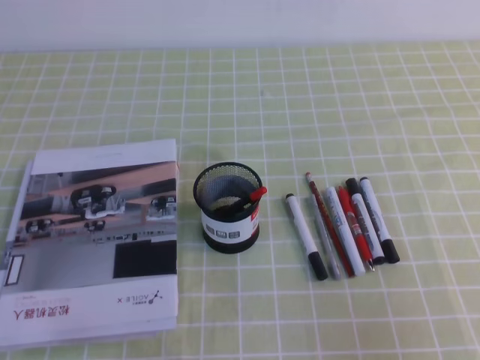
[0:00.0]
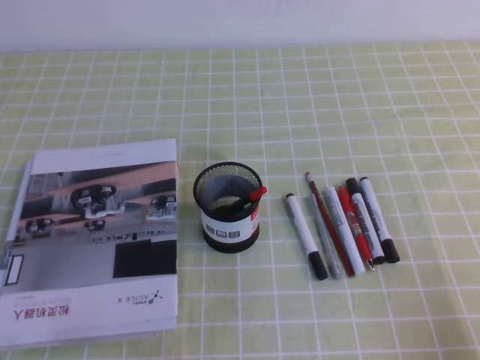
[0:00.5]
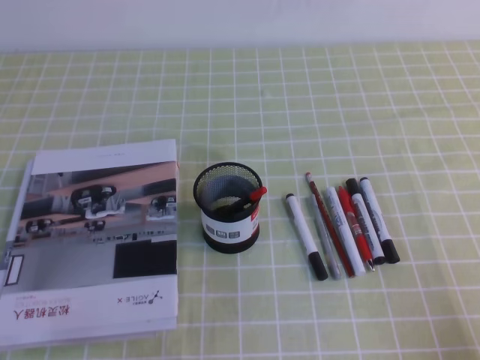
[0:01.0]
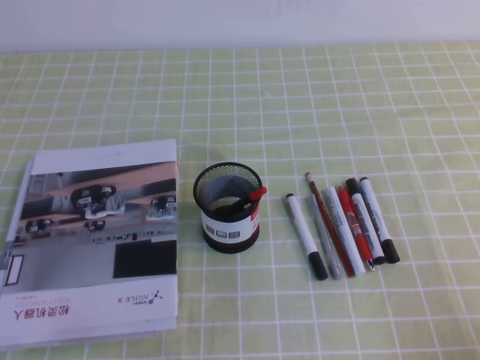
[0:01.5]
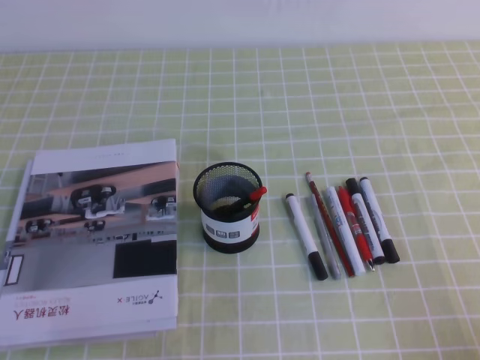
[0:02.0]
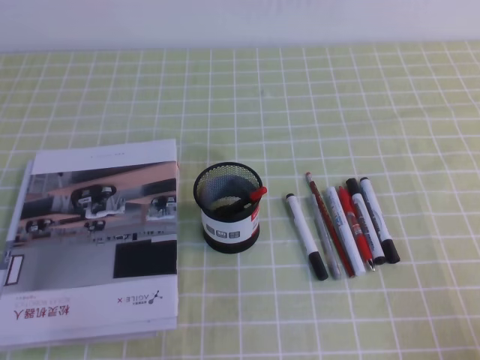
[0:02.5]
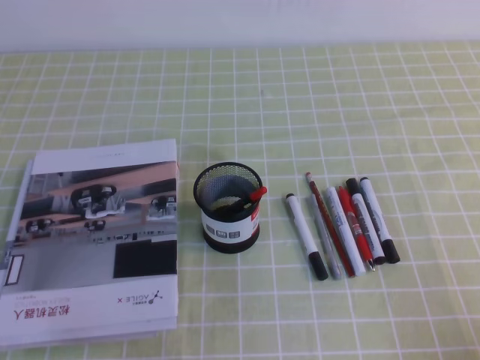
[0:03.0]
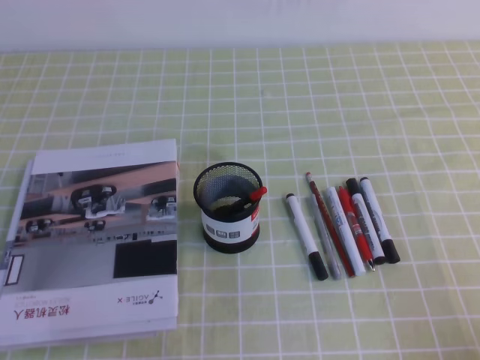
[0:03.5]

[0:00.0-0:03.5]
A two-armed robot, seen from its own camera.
Step, 0:00.0 to 0:03.5: Pick up the pen from the pen holder.
0:00.0 to 0:02.0: The right gripper heads downward, covering some 15 cm.
0:02.0 to 0:03.5: Neither gripper changes place.

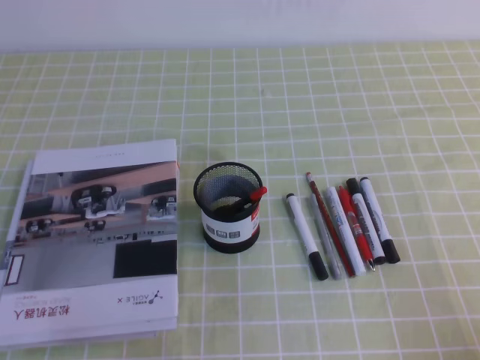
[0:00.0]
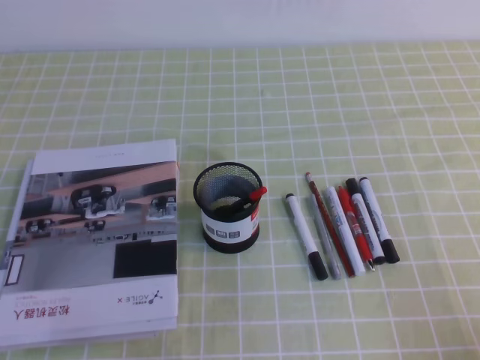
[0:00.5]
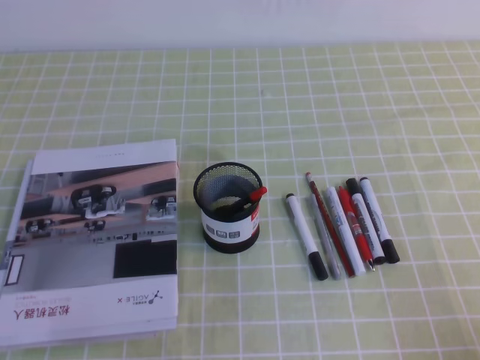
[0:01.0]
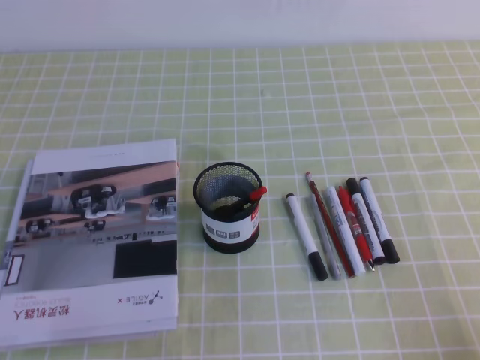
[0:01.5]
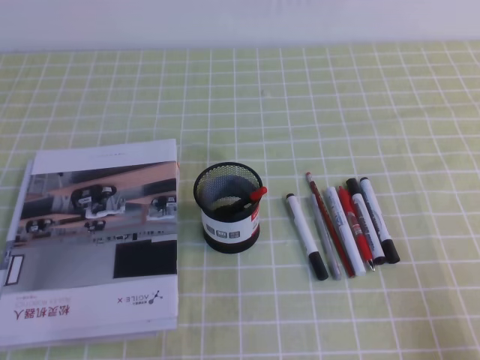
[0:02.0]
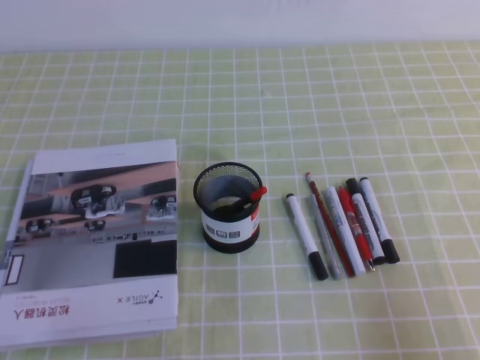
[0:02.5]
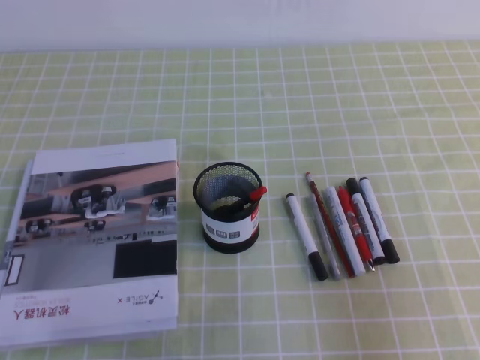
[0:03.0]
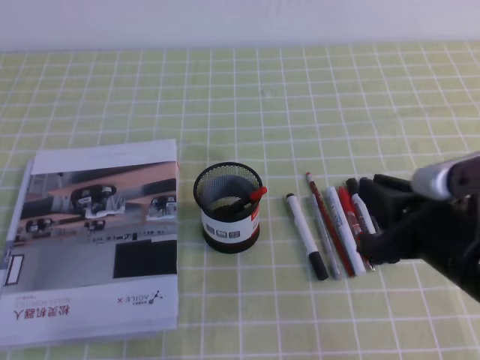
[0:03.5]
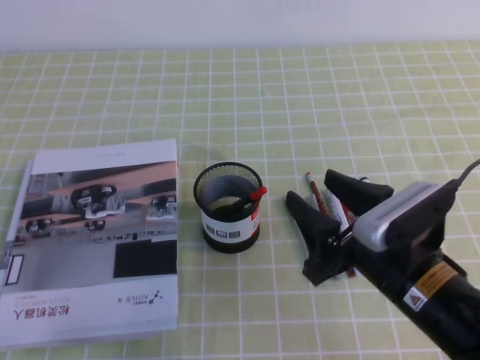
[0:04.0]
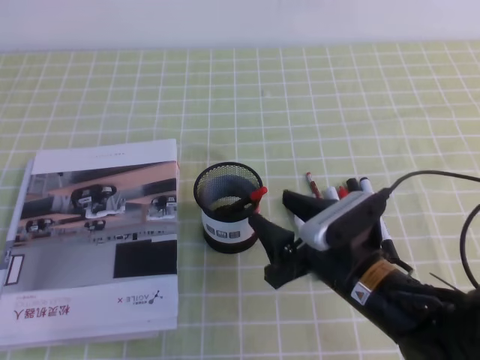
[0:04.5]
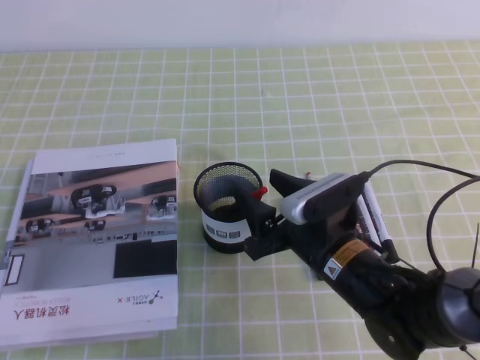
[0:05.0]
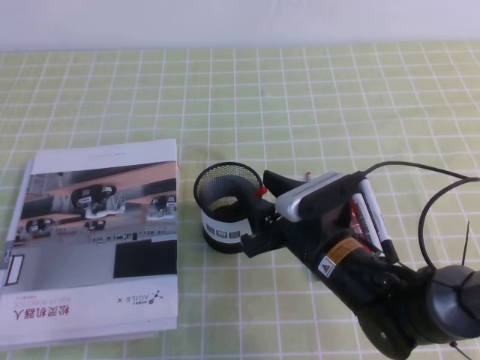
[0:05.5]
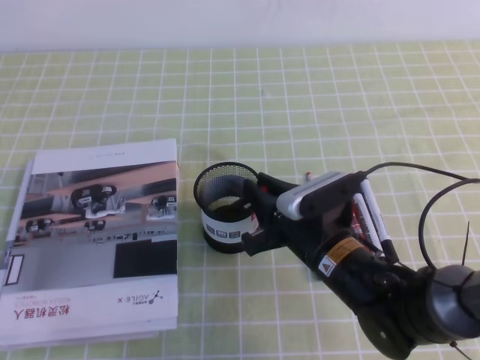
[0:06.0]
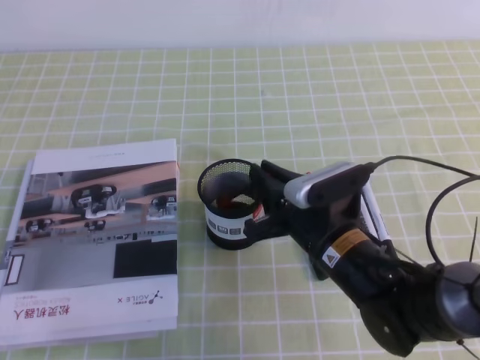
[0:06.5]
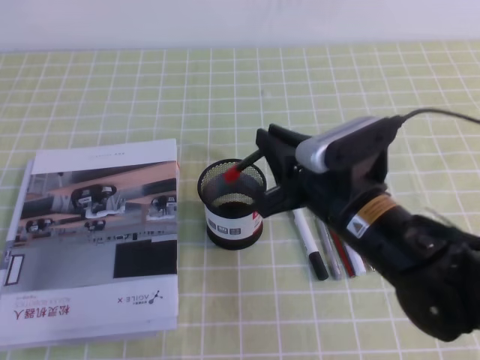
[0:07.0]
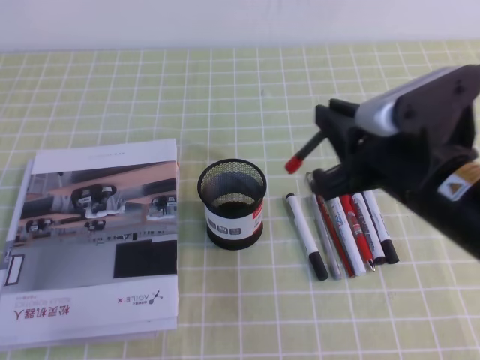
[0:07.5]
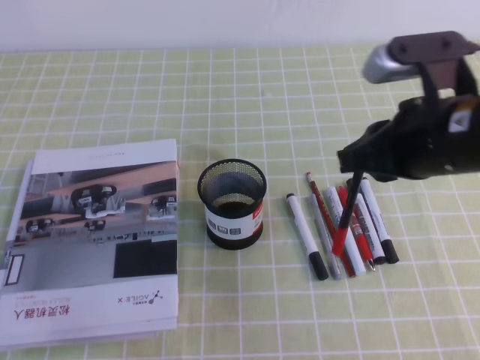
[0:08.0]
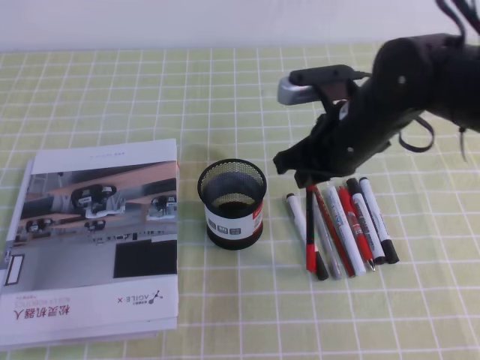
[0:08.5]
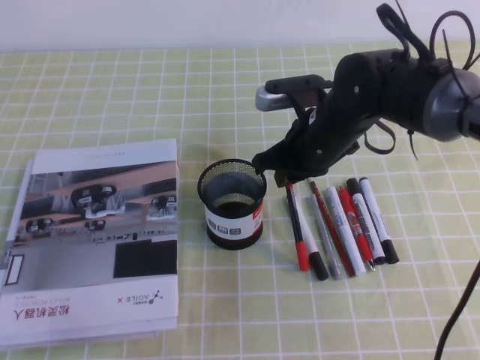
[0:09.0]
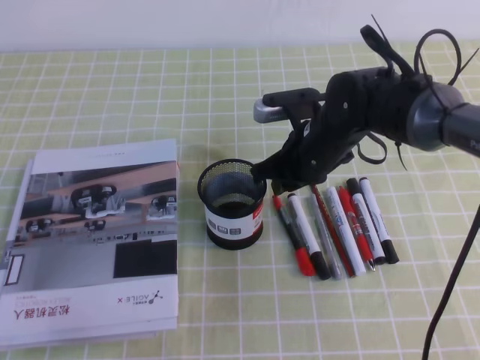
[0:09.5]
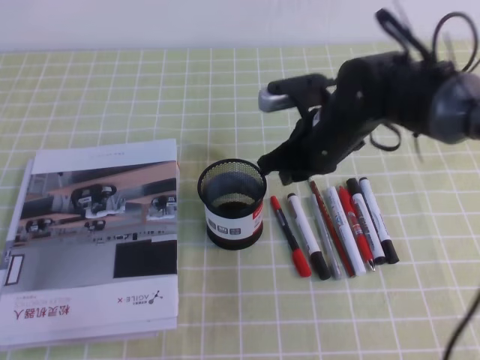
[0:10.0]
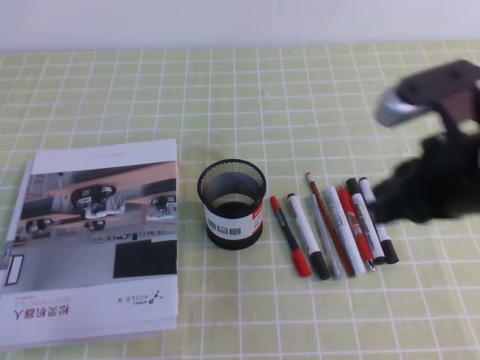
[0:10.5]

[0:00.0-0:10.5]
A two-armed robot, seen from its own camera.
0:02.0 to 0:04.0: The right gripper goes approximately 25 cm to the left and forward, and opens.
0:04.0 to 0:06.5: The right gripper is displaced to the left and forward by roughly 10 cm, and closes its fingers.
0:06.5 to 0:08.5: The right gripper heads upward and forward, covering about 15 cm.
0:08.5 to 0:10.5: The right gripper travels backward, to the right and upward by approximately 15 cm.

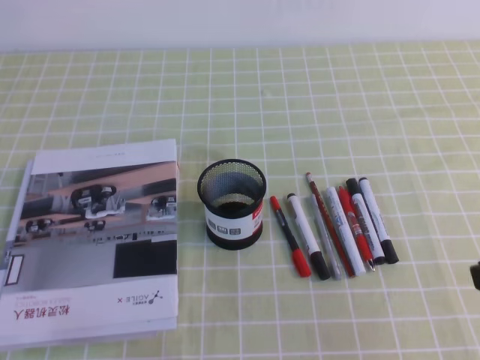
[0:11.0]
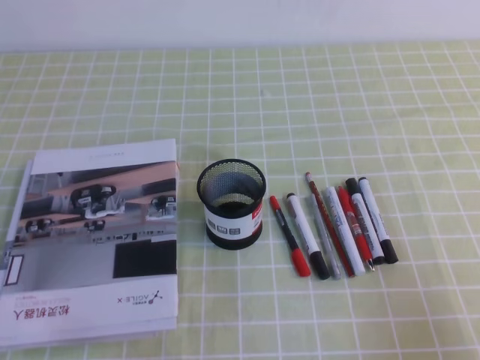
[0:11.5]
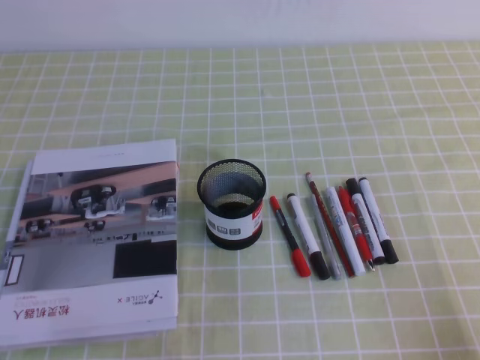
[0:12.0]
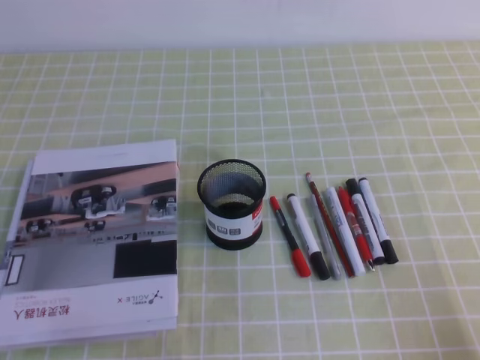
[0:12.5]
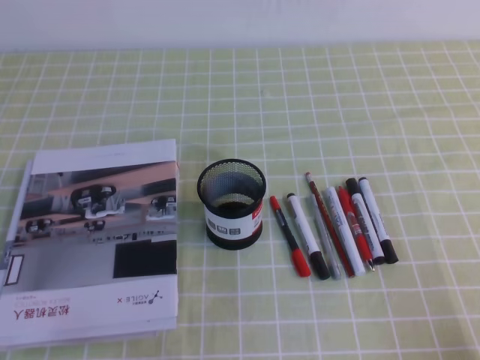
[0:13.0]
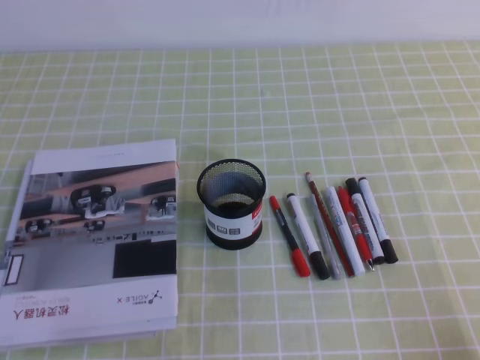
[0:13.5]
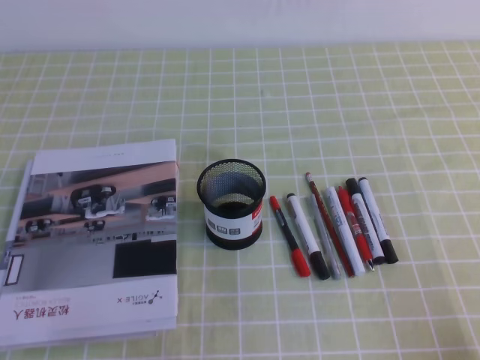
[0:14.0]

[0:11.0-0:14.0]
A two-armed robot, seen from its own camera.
Step, 0:11.0 to 0:14.0: Pick up the pen from the pen holder.
0:11.0 to 0:12.5: The right gripper is displaced downward, to the right and backward by roughly 15 cm.
